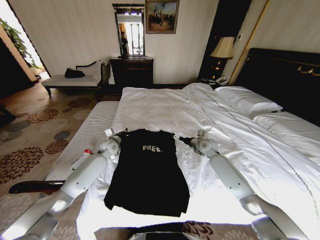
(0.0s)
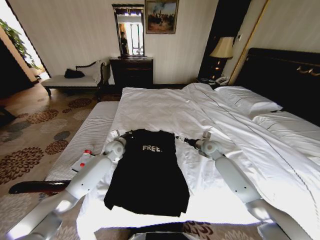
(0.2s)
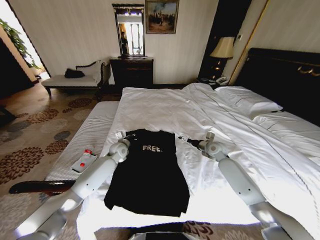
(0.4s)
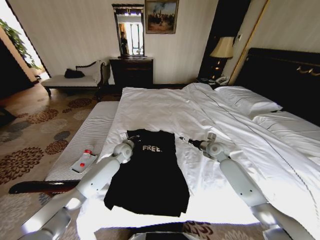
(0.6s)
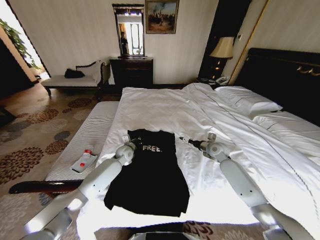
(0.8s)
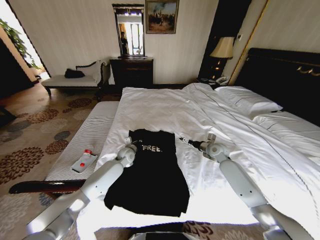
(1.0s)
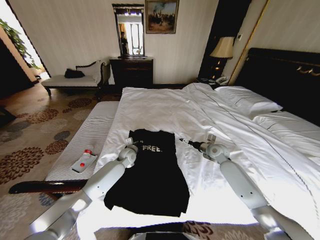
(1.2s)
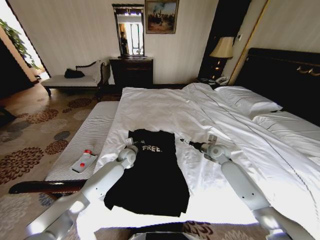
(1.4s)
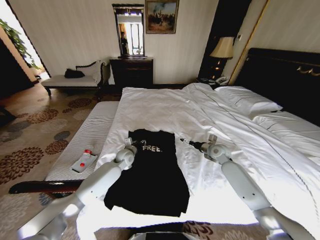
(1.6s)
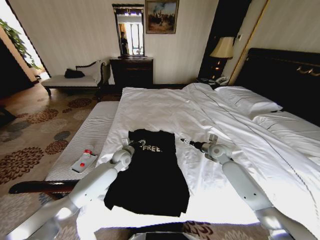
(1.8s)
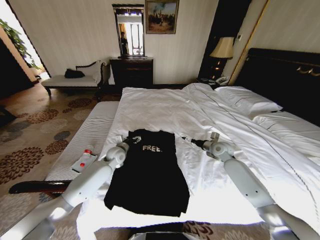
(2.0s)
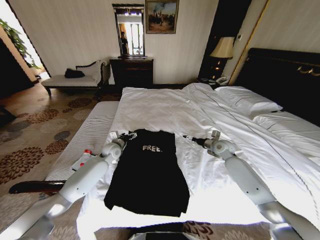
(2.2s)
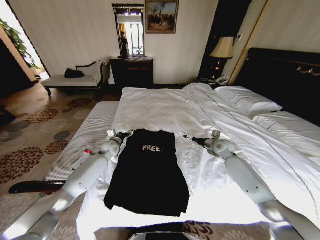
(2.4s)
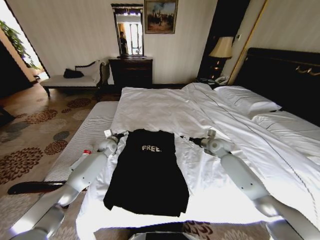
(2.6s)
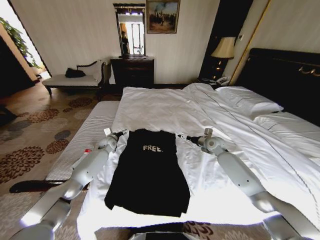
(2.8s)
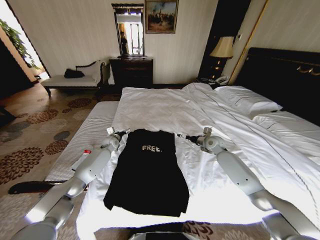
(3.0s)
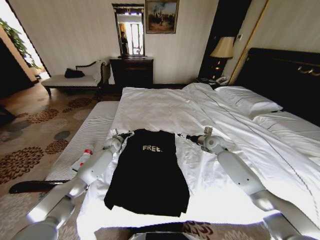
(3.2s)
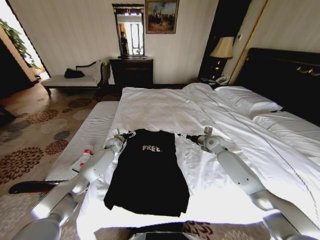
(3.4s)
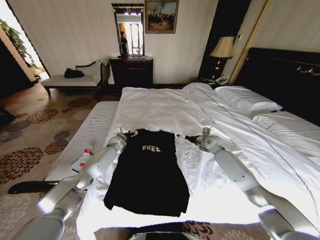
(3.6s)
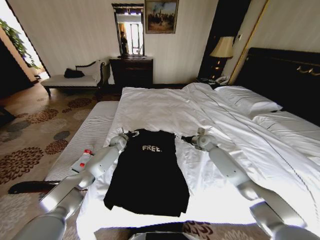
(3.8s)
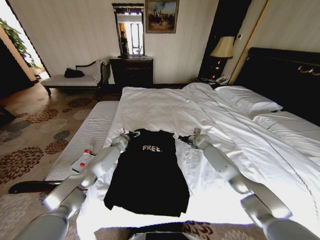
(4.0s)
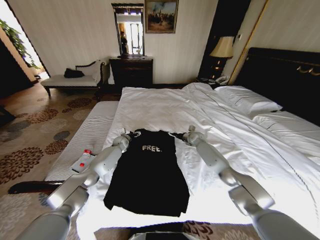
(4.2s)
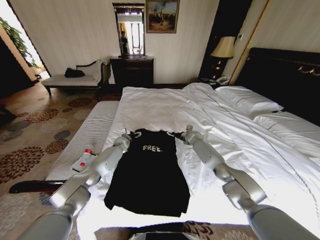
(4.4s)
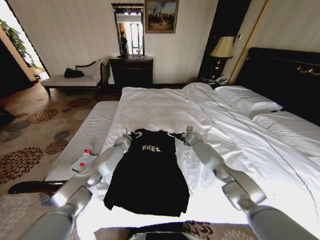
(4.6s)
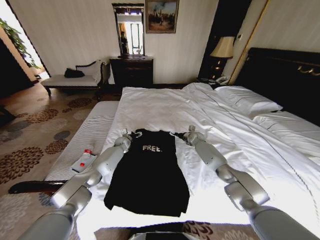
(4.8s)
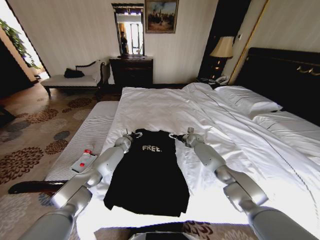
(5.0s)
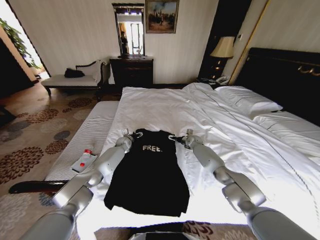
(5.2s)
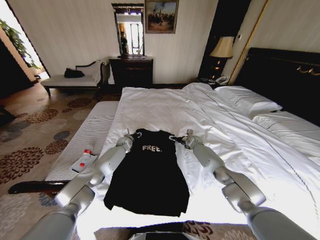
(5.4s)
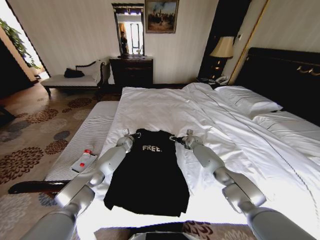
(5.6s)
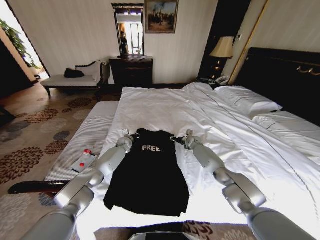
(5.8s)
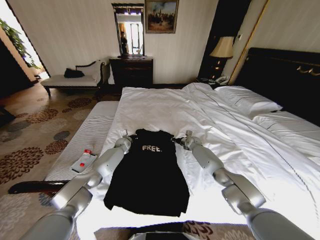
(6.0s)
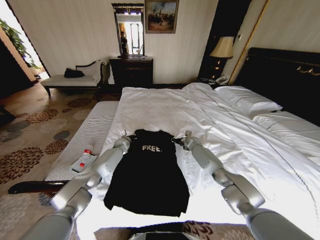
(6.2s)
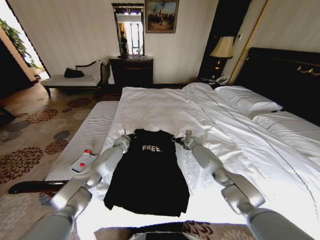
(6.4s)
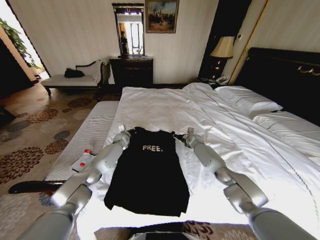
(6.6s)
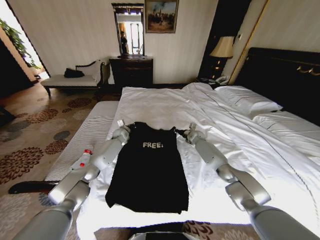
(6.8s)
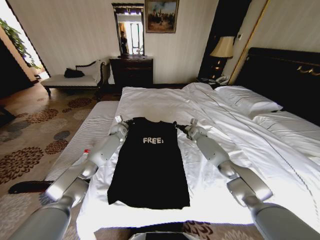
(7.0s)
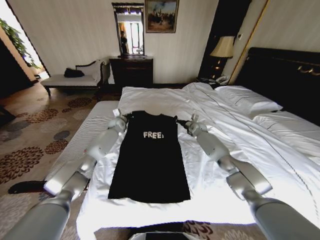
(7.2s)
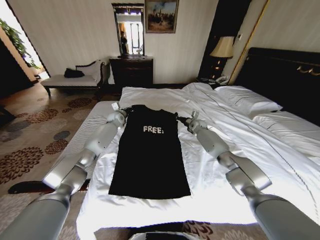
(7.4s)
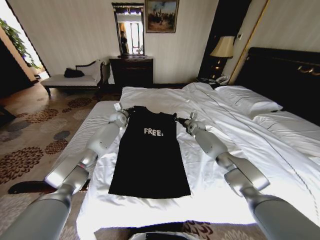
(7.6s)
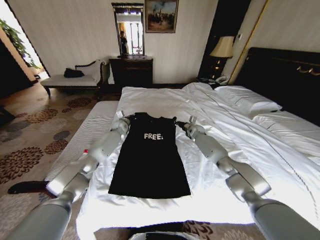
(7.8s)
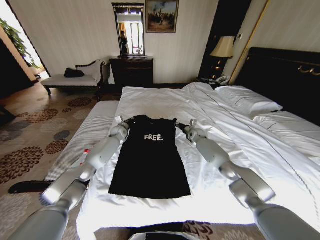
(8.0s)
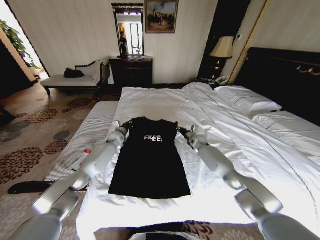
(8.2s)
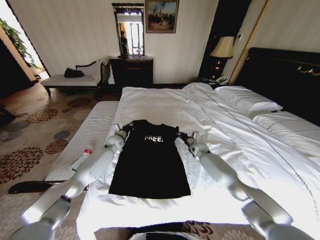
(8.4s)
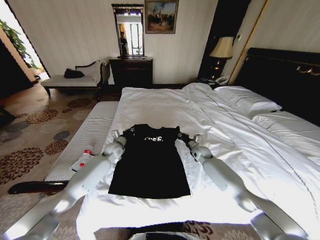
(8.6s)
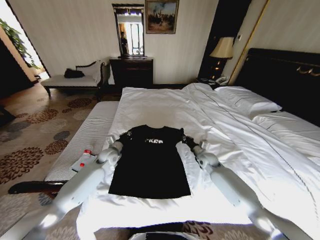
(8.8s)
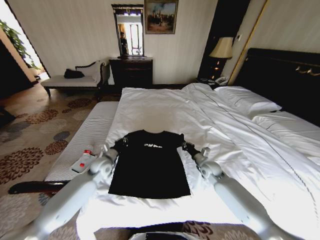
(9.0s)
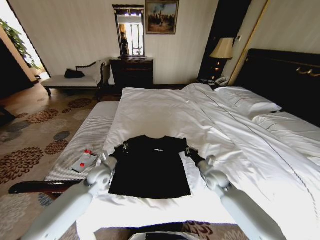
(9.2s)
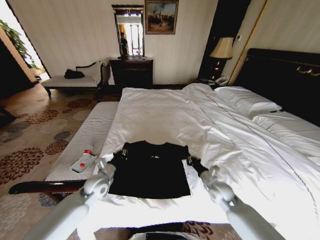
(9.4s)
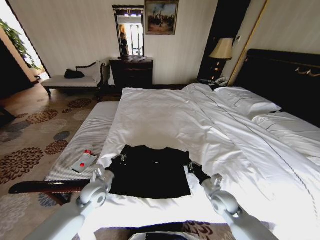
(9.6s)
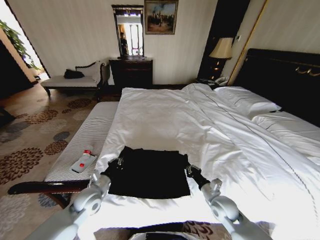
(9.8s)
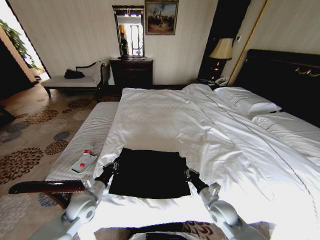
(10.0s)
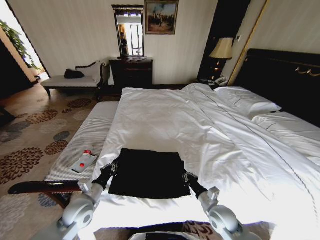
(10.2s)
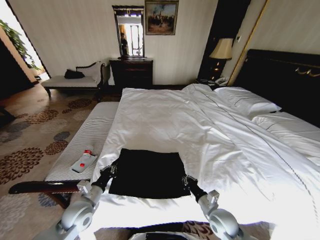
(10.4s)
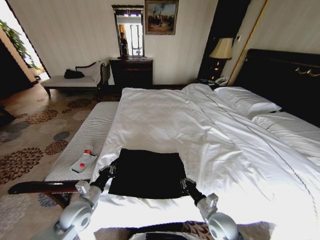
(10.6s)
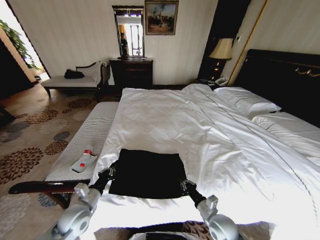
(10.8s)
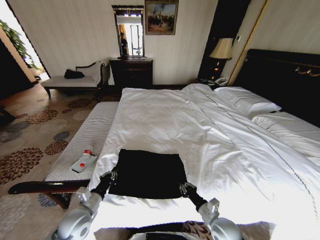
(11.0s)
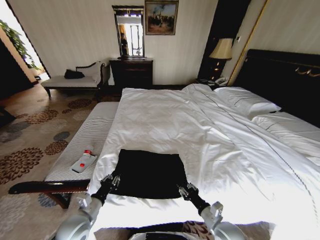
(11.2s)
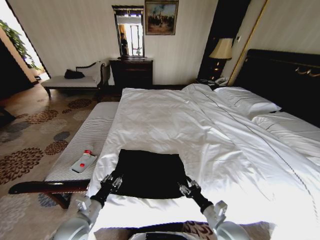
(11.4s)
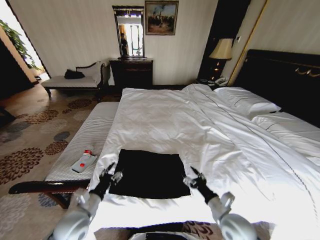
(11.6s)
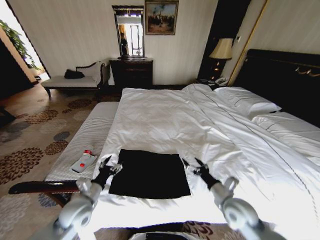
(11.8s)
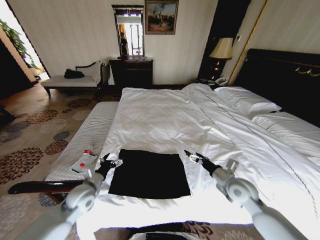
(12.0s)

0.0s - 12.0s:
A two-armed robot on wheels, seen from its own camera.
Task of the whole recording: Fold the clothes on the bed.
0.0s - 1.6s: The left gripper shifts roughly 10 cm to the right, and opens, while the right gripper travels to the right by approximately 5 cm.
1.6s - 3.0s: The right gripper moves roughly 5 cm. Meanwhile the left gripper is displaced to the left and forward by roughly 15 cm, and opens up.
3.0s - 4.4s: The left gripper heads to the right, covering about 5 cm. Meanwhile the right gripper travels forward, downward and to the left by roughly 15 cm.
4.4s - 6.0s: The right gripper closes, while the left gripper closes up.
6.0s - 7.6s: The right gripper travels upward by some 10 cm. Meanwhile the left gripper shifts approximately 15 cm upward.
7.6s - 9.0s: Both grippers travel together backward, roughly 25 cm.
9.0s - 10.4s: Both grippers travel together backward, roughly 20 cm.
10.4s - 12.0s: The left gripper heads forward, covering about 5 cm, and opens up. The right gripper travels upward, forward and to the right by roughly 15 cm, and opens up.

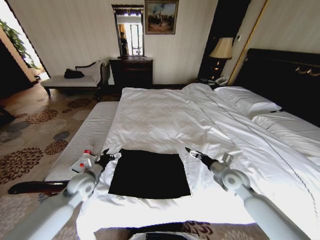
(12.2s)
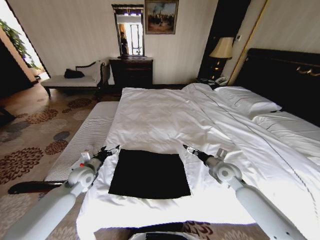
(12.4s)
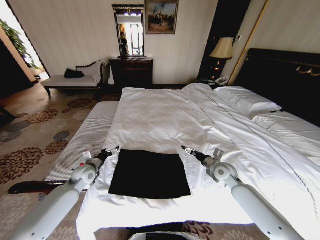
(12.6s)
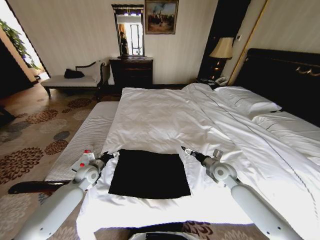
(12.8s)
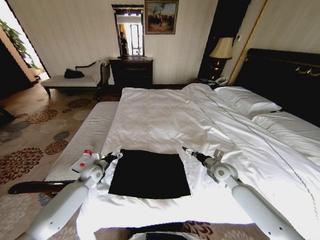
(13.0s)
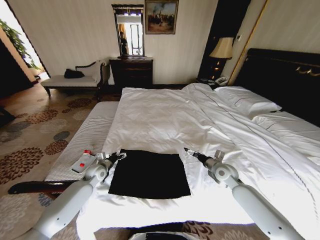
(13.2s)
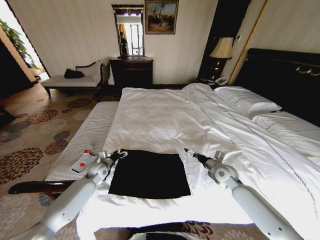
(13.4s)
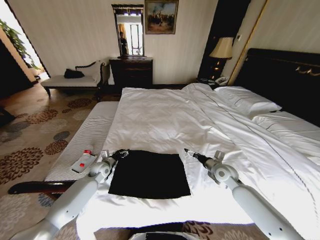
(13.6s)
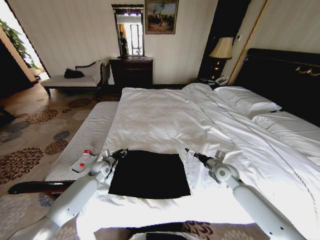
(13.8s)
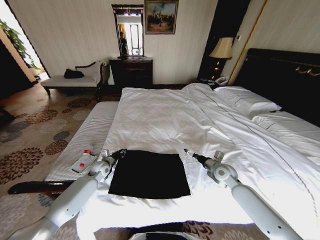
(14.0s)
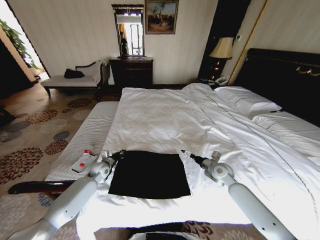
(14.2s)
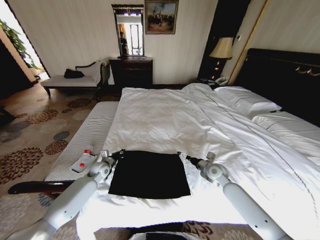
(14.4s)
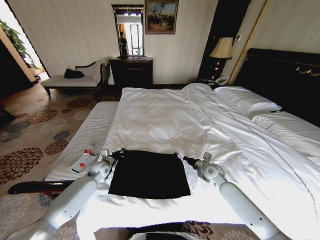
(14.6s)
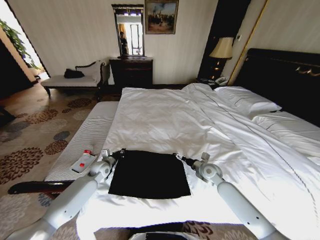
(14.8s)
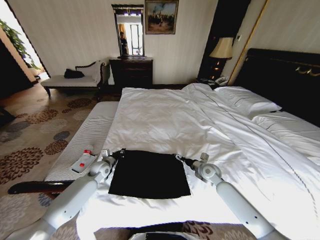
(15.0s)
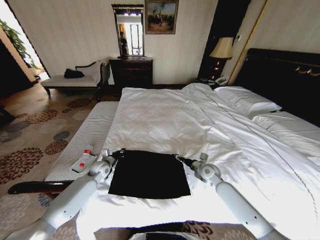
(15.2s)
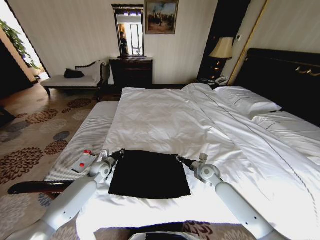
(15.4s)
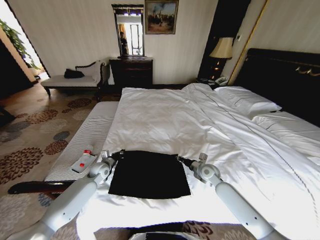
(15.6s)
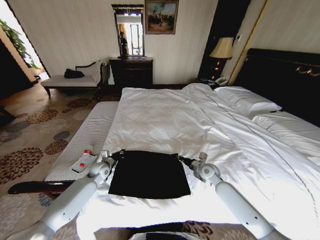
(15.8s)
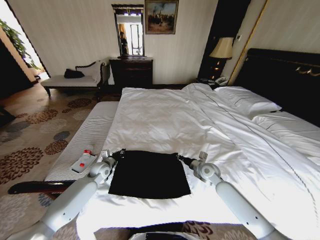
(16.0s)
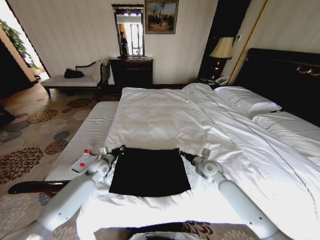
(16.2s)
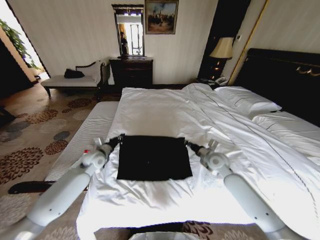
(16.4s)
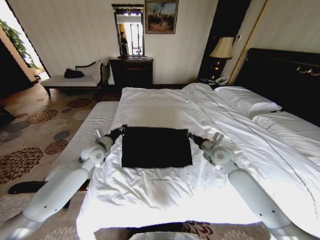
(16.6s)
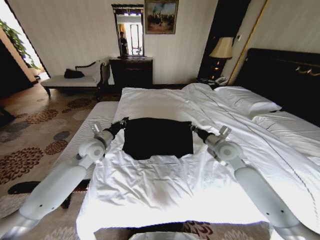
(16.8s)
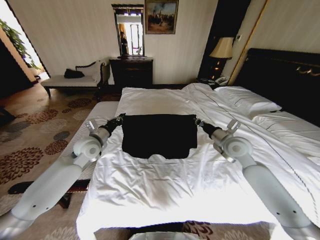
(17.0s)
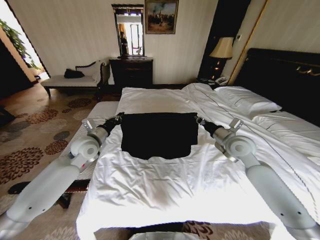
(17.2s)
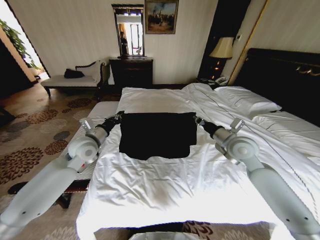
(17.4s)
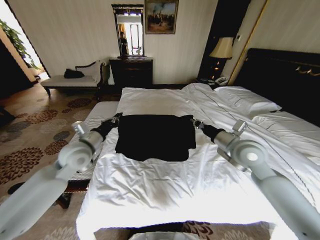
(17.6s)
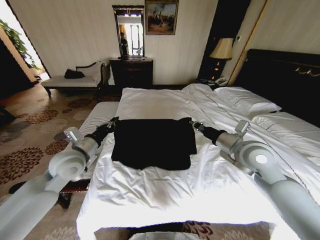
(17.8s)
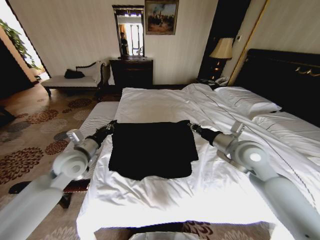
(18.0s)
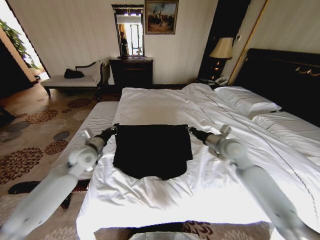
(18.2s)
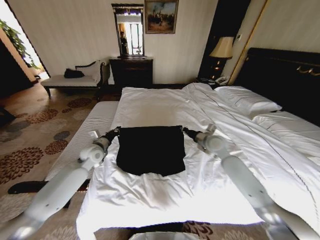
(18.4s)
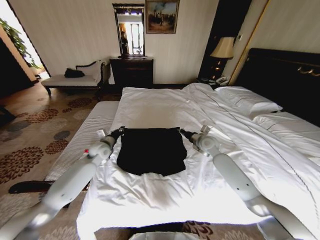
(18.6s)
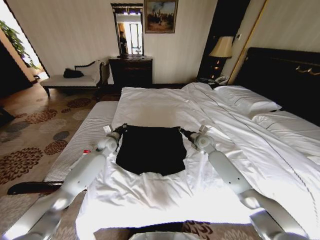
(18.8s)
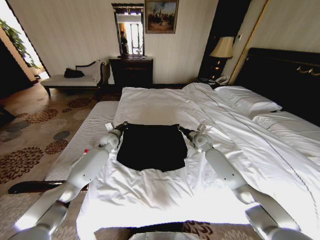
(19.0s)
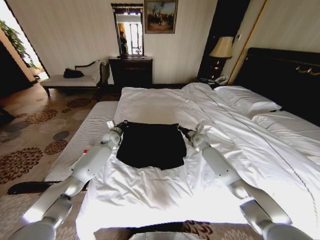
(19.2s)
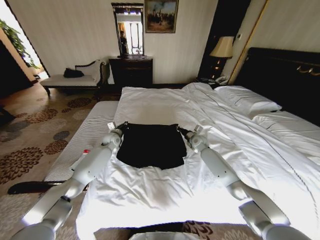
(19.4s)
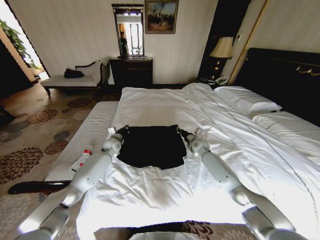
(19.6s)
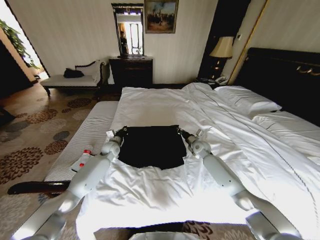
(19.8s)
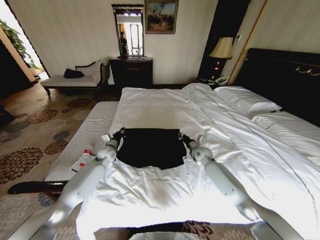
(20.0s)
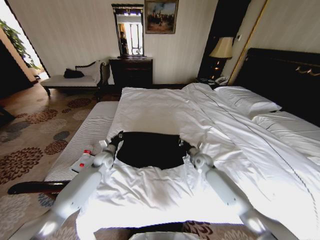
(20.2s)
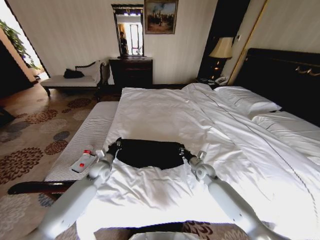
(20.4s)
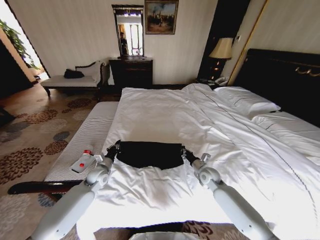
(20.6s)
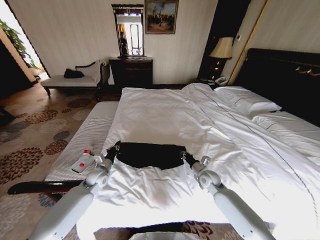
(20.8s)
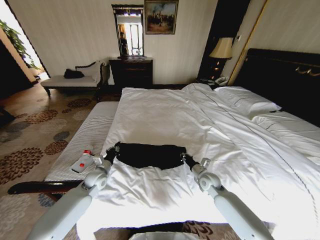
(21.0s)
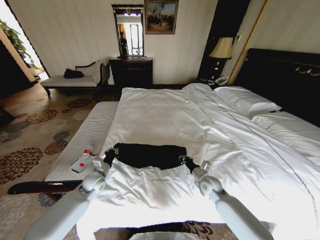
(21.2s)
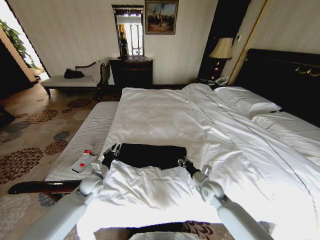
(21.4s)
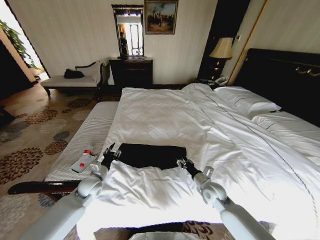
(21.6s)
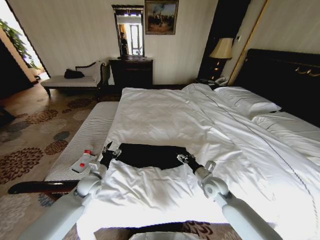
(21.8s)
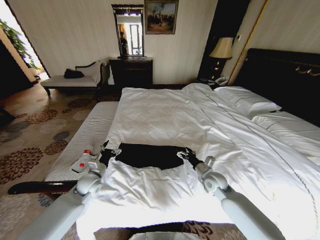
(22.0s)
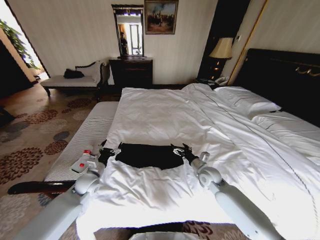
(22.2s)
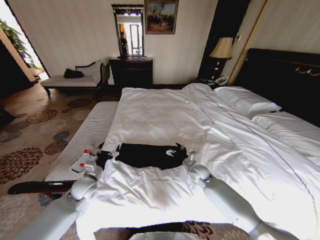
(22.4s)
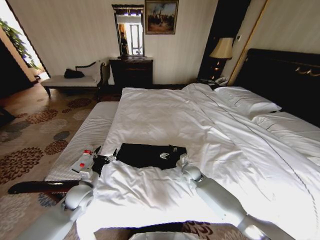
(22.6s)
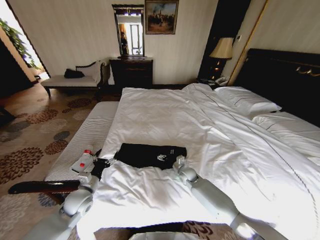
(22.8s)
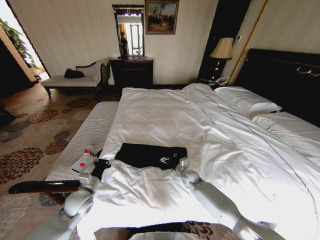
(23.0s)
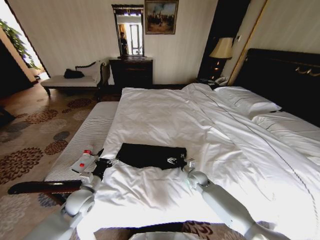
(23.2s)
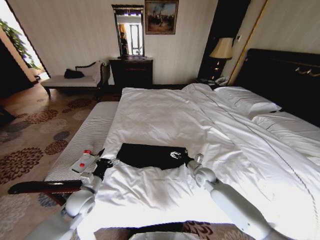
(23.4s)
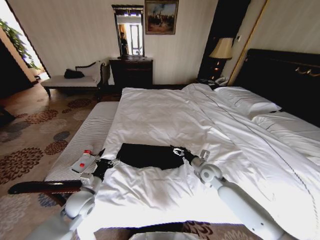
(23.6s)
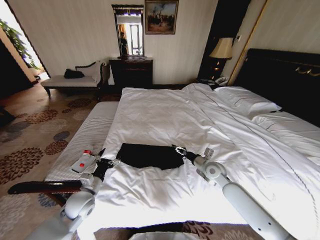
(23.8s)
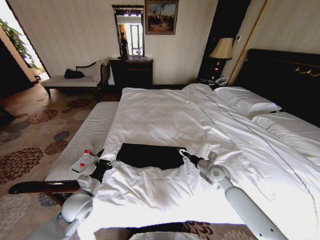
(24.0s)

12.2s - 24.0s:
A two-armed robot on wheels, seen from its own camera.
Task of the whole recording: Fold the clothes on the bed.
12.2s - 13.6s: The left gripper travels forward and downward by roughly 15 cm.
13.6s - 15.2s: The right gripper moves some 5 cm, while the left gripper closes its fingers.
15.2s - 16.6s: Both grippers move upward, about 15 cm. The right gripper closes its fingers.
16.6s - 18.2s: The left gripper goes backward and returns, approximately 10 cm each way. The right gripper goes some 5 cm upward.
18.2s - 19.6s: The left gripper shifts roughly 20 cm forward and downward. Meanwhile the right gripper goes some 20 cm downward and forward.
19.6s - 21.0s: The two grippers go roughly 20 cm backward.
21.0s - 22.6s: The right gripper moves to the left and forward, roughly 10 cm, and opens up. The left gripper shifts approximately 10 cm backward, and opens up.
22.6s - 24.0s: The right gripper moves to the right and upward, roughly 10 cm.
